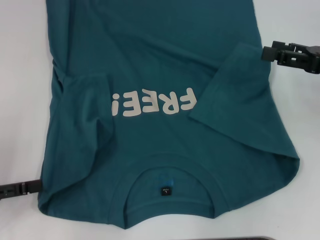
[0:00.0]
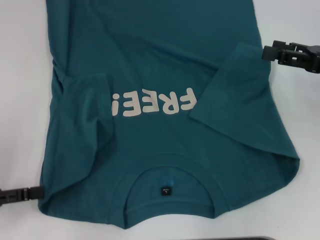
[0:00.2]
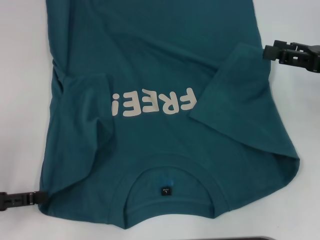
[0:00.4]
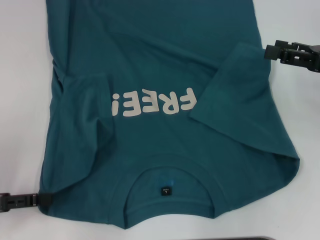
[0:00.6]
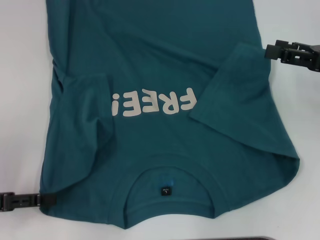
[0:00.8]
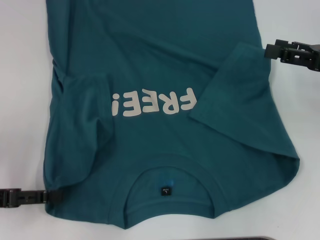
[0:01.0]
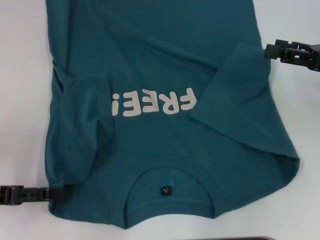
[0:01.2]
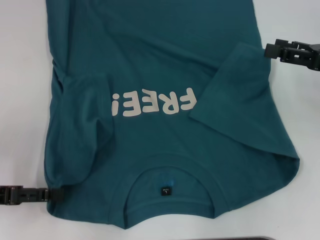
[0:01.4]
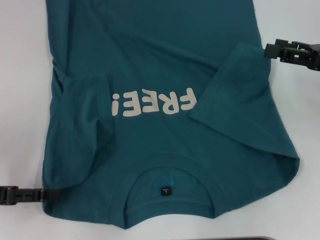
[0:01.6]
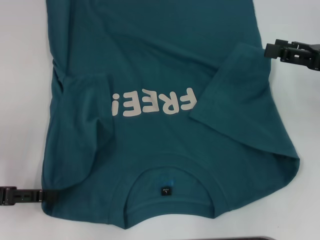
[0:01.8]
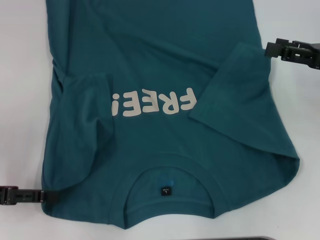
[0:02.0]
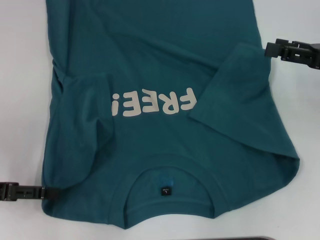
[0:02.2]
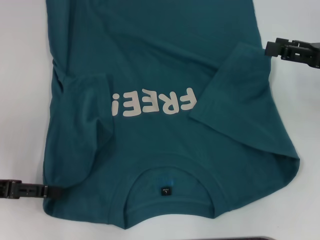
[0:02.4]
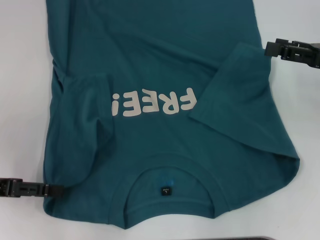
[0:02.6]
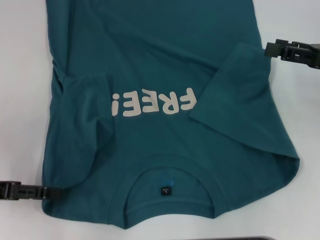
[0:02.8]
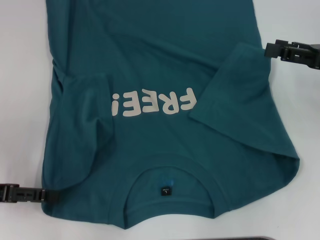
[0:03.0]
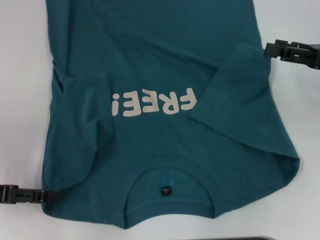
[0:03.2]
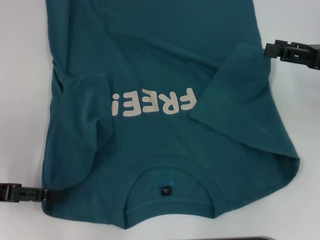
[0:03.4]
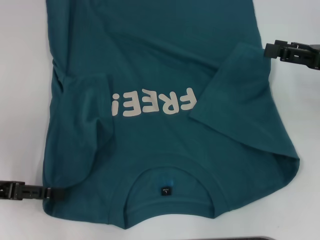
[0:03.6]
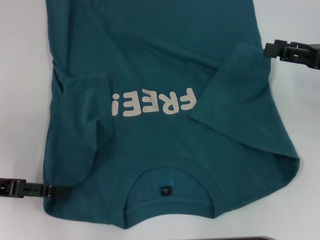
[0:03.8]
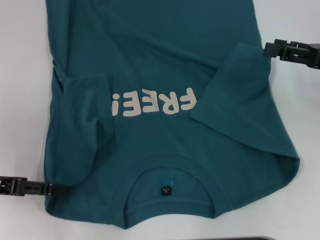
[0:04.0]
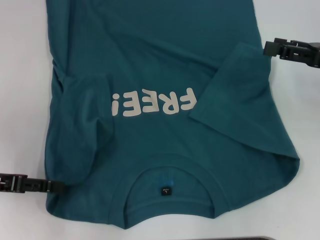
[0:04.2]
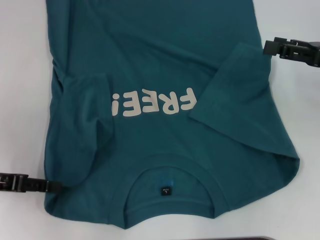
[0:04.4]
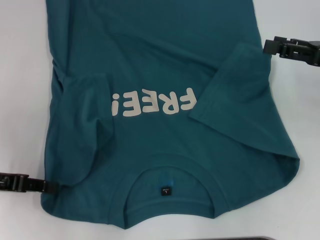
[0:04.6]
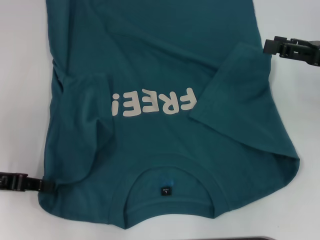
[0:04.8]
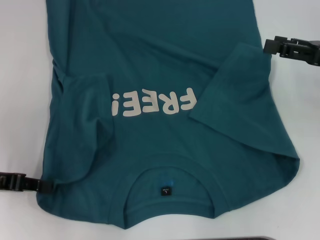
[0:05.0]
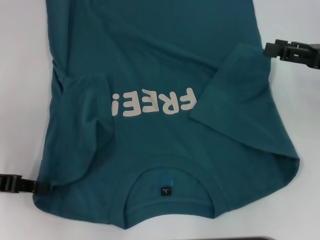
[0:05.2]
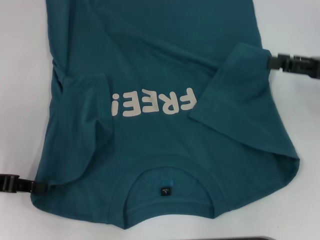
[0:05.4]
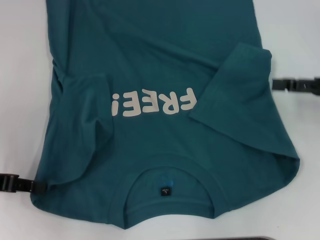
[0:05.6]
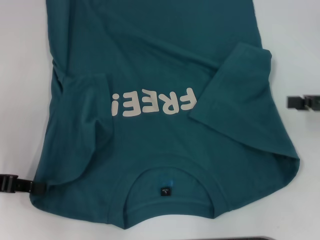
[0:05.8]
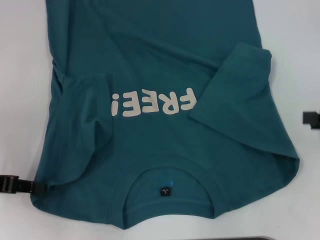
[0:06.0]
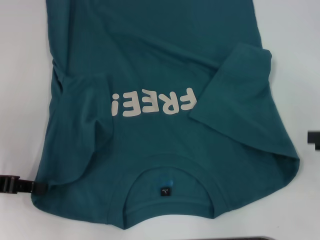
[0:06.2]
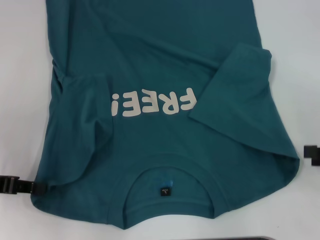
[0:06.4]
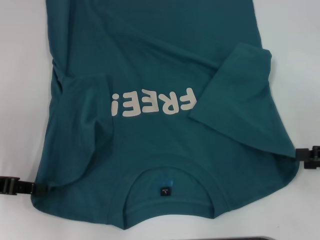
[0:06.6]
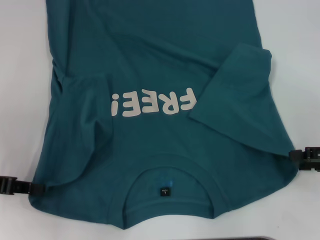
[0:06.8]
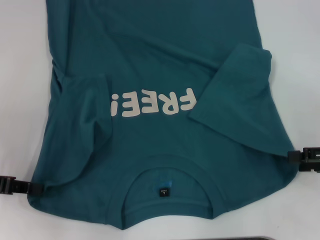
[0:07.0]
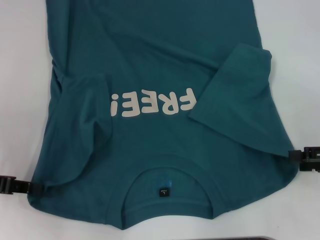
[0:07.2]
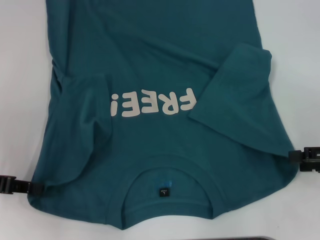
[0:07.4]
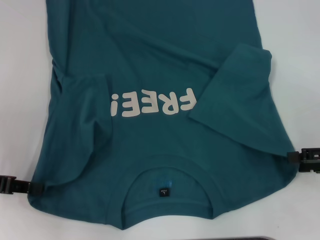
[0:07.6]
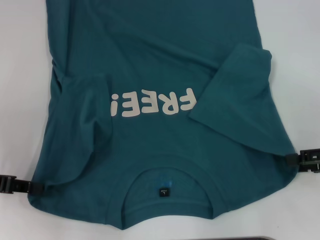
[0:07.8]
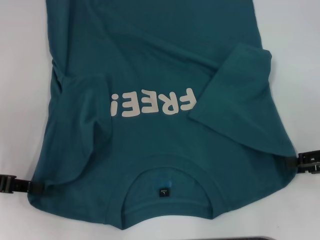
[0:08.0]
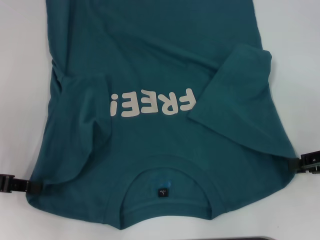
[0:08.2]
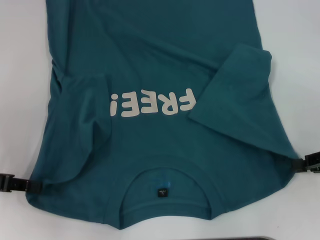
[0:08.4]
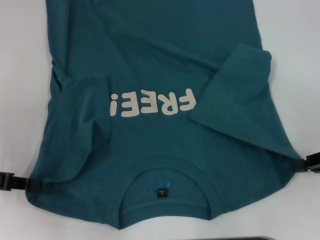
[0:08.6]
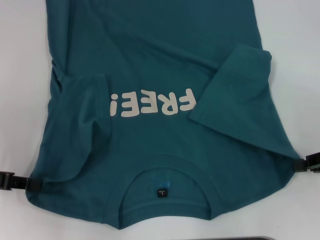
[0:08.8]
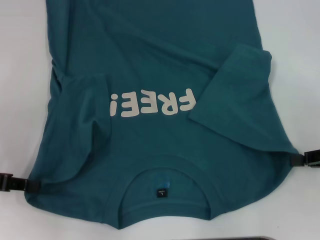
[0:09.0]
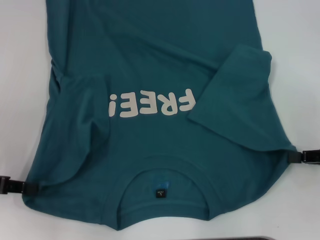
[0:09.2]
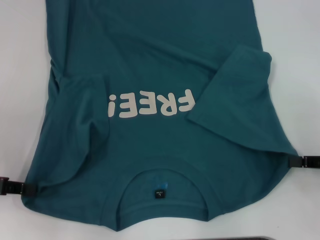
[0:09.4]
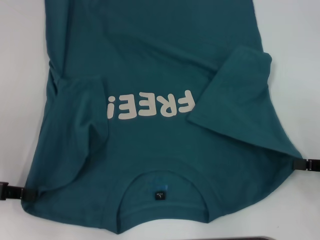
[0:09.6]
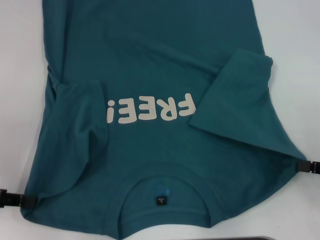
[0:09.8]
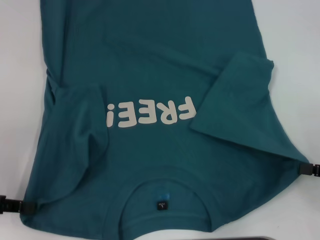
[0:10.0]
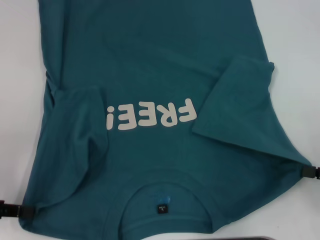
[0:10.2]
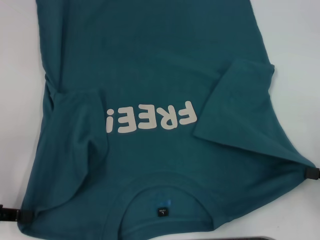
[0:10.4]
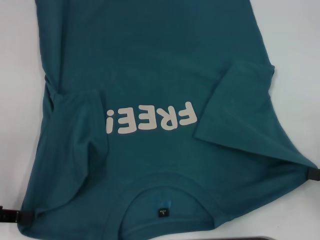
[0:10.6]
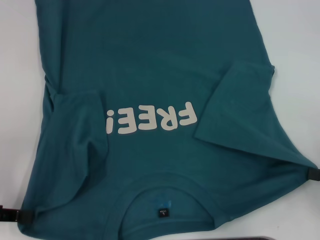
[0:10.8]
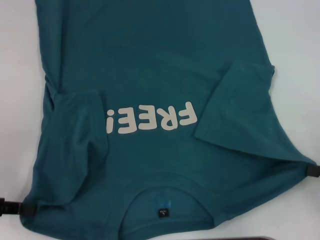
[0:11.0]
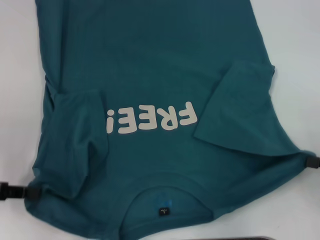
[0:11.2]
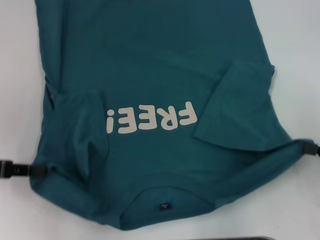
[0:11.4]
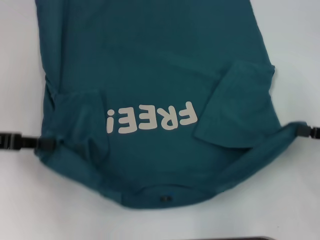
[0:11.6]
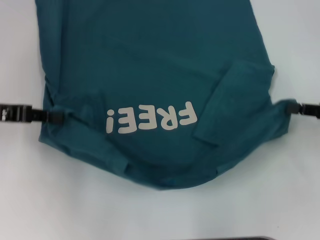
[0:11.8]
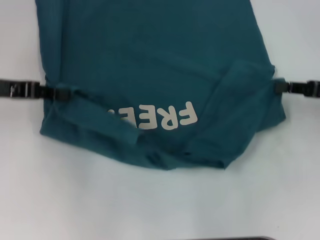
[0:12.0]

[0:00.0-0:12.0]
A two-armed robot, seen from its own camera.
Step, 0:00.0 to 0:04.8: Grab the bottom left corner with your left hand.
Step, 0:05.0 to 0:08.4: Grab the bottom right corner with your right hand.
0:00.0 to 0:01.6: The grippers move only a little.
0:03.0 to 0:04.4: The grippers move only a little.
0:04.4 to 0:06.0: The left gripper closes up; the right gripper heads backward and to the right, covering roughly 10 cm.
0:06.0 to 0:07.6: The grippers move only a little.
0:07.6 to 0:09.0: The right gripper closes up.
0:09.0 to 0:10.4: The right gripper heads backward, covering some 5 cm.
0:10.4 to 0:12.0: The right gripper is displaced forward by approximately 10 cm. Meanwhile the left gripper travels forward, upward and to the right by about 15 cm.

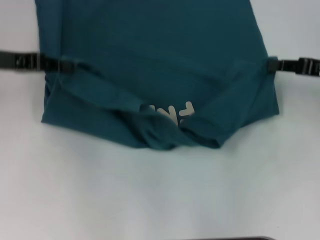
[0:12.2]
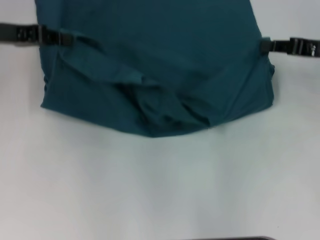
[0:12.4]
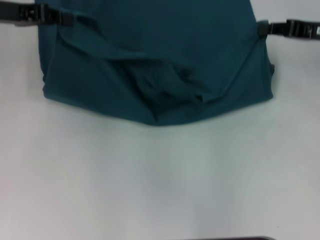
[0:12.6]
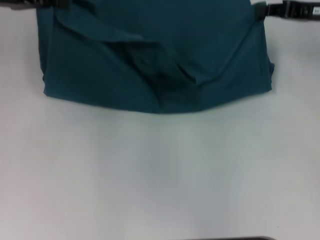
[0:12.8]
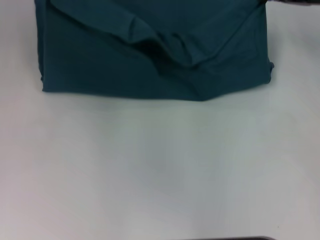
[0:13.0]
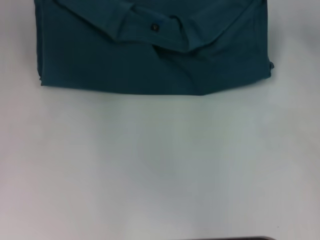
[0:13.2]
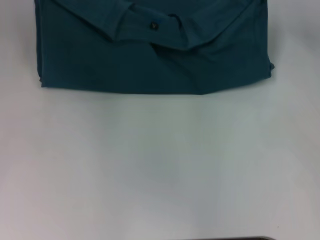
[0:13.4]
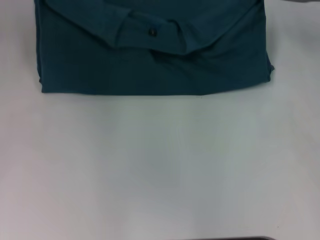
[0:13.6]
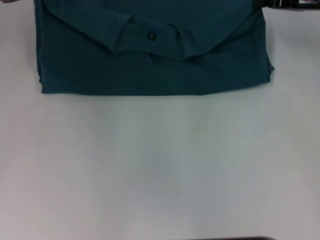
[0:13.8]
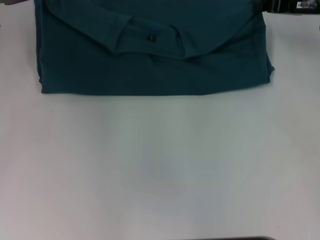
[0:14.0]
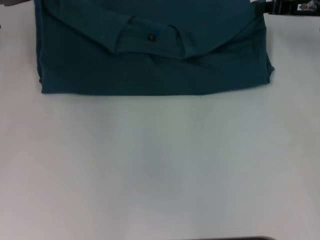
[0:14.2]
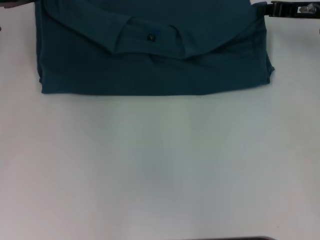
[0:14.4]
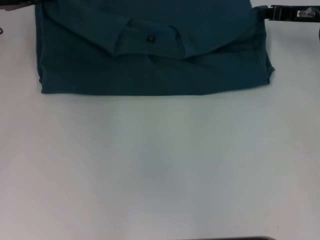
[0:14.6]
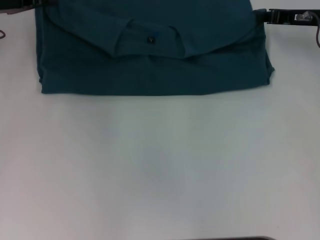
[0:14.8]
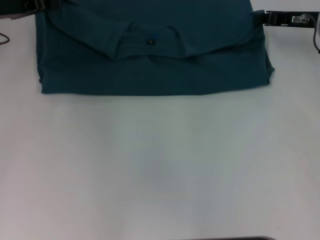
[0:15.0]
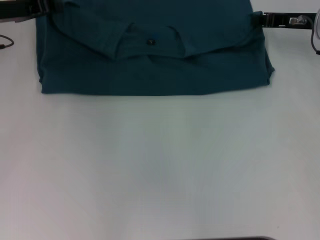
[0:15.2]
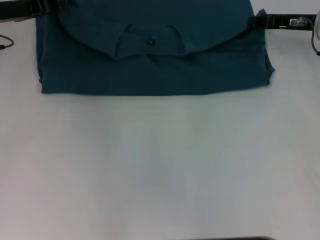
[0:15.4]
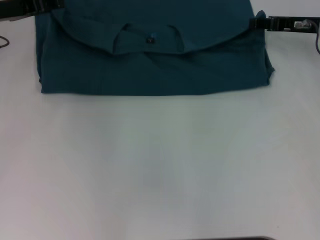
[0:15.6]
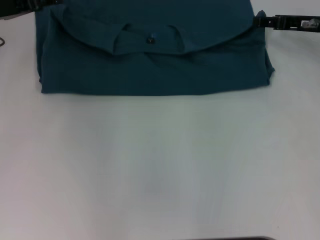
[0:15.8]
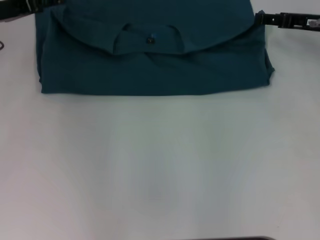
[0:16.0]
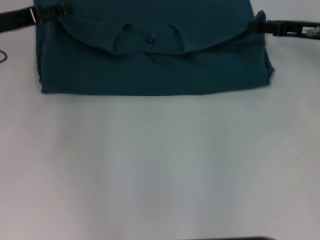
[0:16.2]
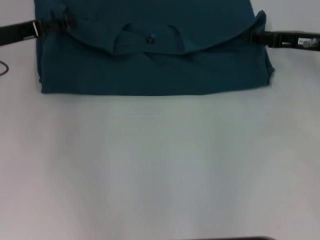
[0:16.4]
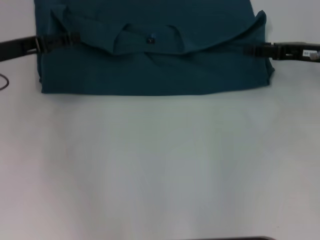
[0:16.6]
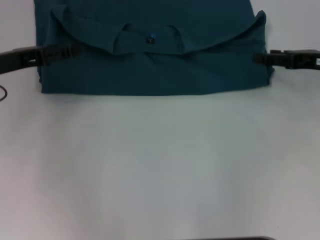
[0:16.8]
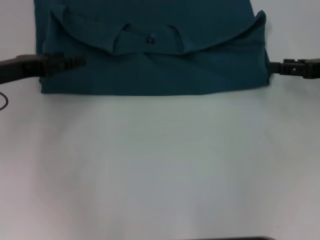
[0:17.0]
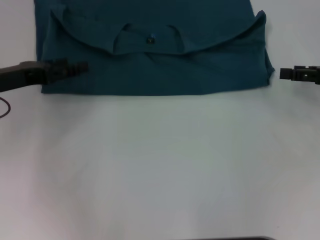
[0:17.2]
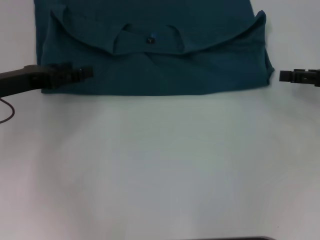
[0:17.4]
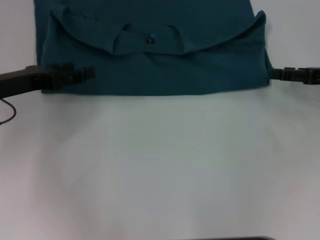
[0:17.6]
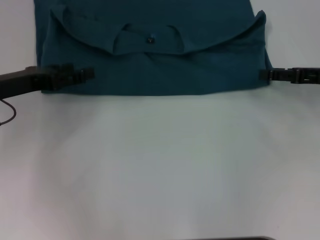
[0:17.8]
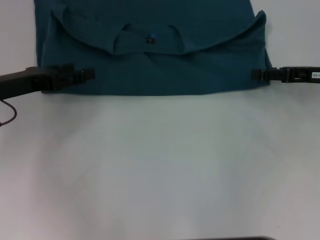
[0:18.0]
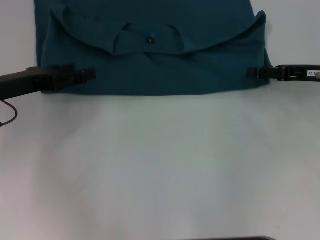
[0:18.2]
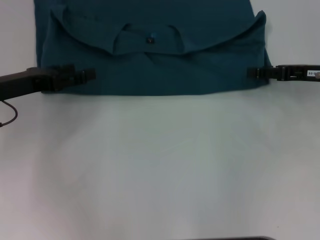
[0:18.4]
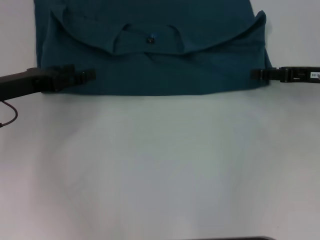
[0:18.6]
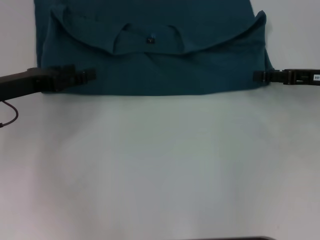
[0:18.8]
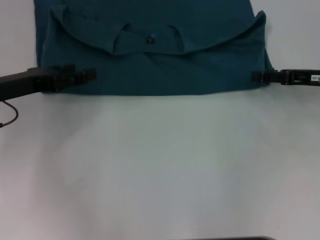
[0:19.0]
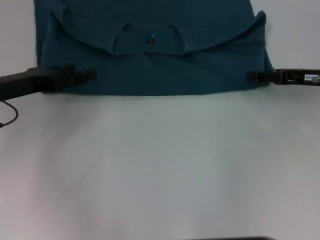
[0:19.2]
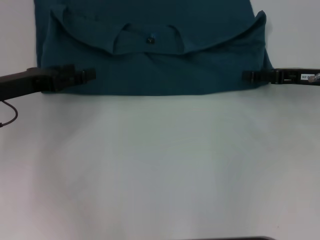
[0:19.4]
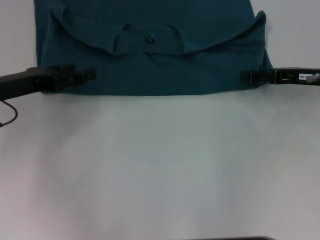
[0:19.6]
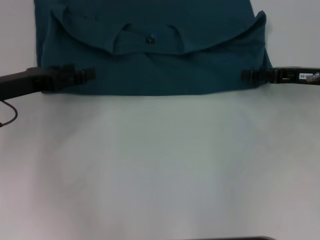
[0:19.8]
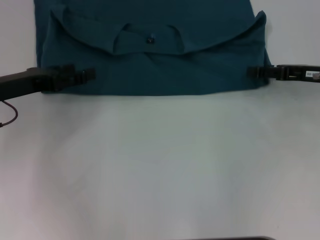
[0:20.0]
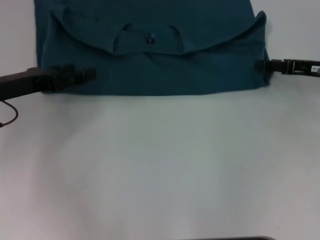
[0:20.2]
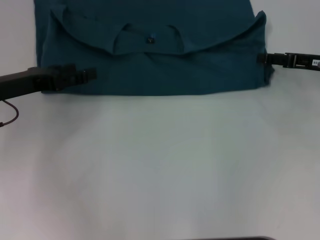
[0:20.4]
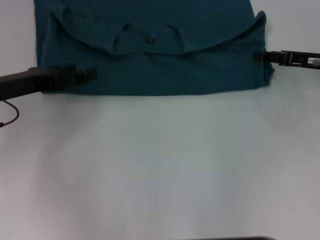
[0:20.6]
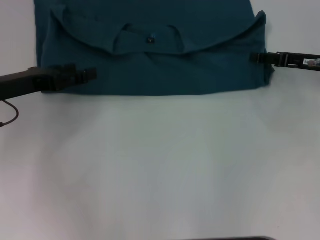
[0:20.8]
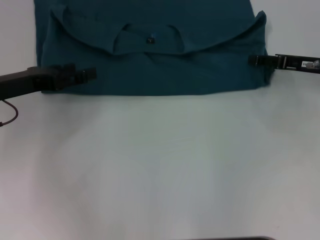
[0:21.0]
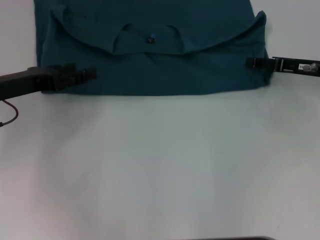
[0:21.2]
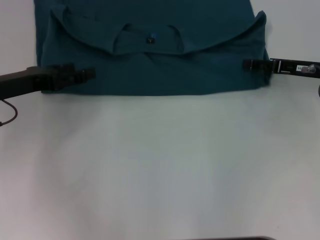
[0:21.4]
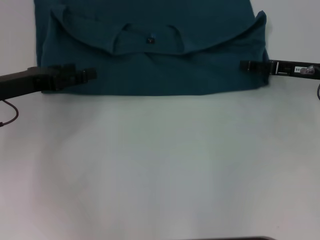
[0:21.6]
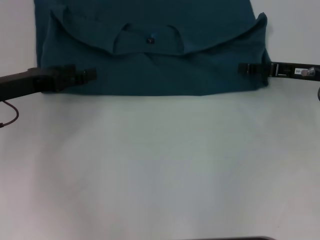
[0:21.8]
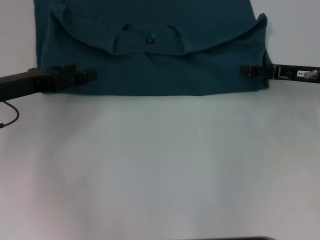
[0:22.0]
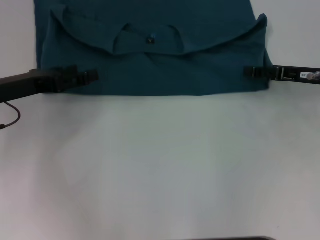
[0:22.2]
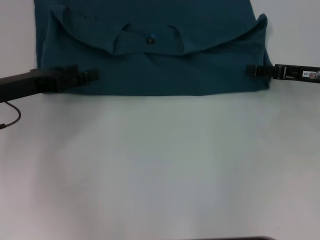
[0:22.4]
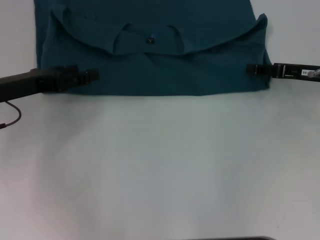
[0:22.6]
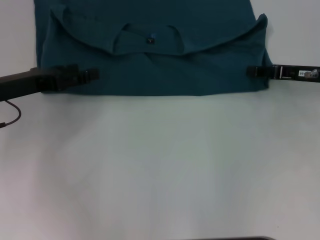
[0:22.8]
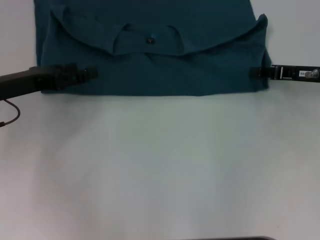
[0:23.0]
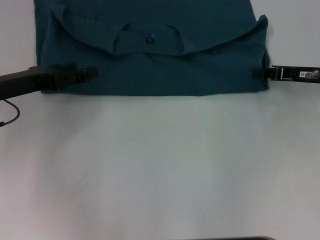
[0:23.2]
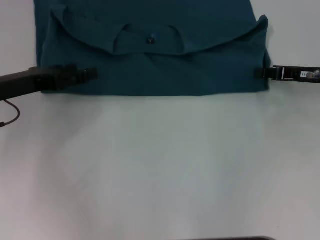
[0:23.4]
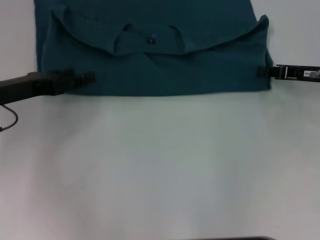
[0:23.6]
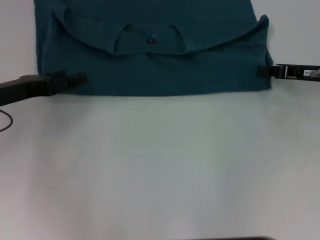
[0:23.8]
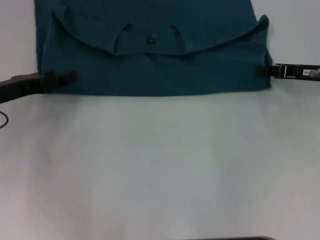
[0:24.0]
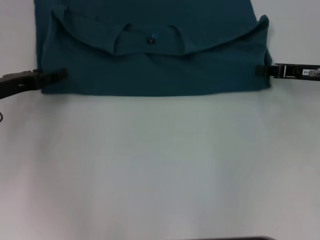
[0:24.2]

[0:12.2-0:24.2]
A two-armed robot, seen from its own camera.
Step, 0:12.2 to 0:15.8: Fold the clothes to the left.
Step, 0:12.2 to 0:15.8: Fold the clothes to the right.
0:12.2 to 0:13.8: The grippers both shift forward by some 10 cm.
0:13.8 to 0:15.2: The grippers stay close to where they were, moving slightly.
0:15.2 to 0:16.6: Both grippers move backward, roughly 5 cm. The left gripper opens up, while the right gripper opens up.
0:18.2 to 0:19.8: Both grippers stay about where they are.
0:19.8 to 0:22.6: The grippers make only small movements.
